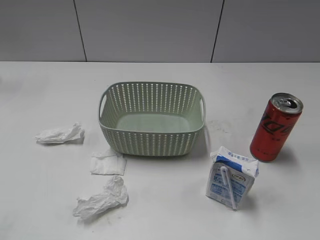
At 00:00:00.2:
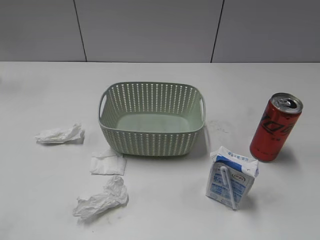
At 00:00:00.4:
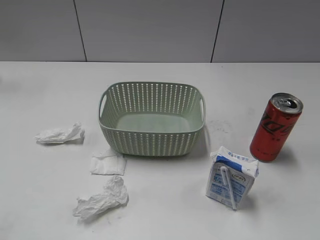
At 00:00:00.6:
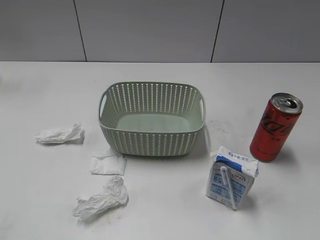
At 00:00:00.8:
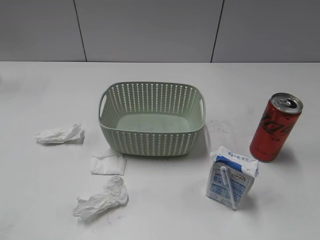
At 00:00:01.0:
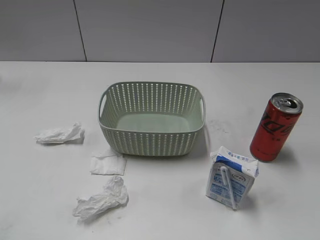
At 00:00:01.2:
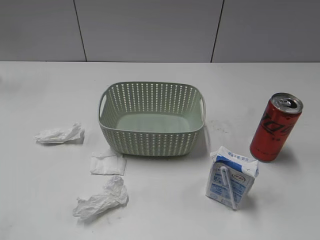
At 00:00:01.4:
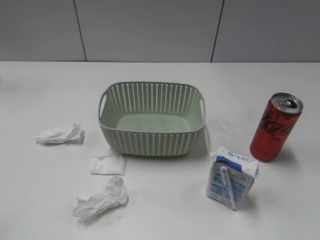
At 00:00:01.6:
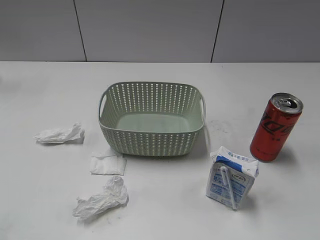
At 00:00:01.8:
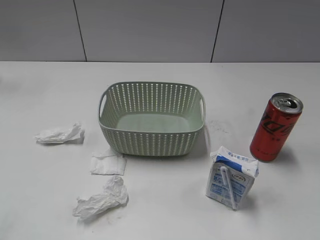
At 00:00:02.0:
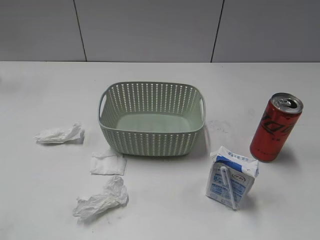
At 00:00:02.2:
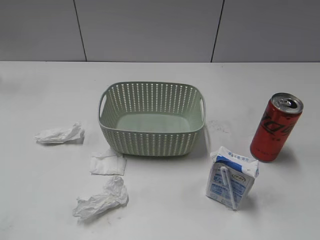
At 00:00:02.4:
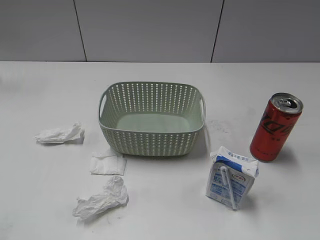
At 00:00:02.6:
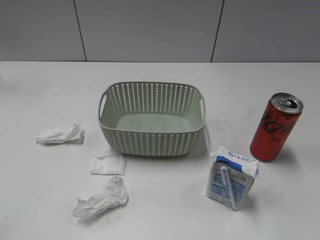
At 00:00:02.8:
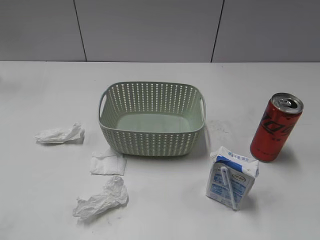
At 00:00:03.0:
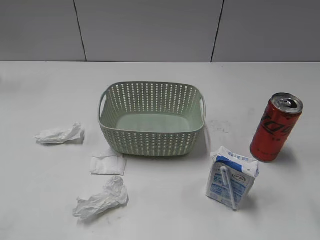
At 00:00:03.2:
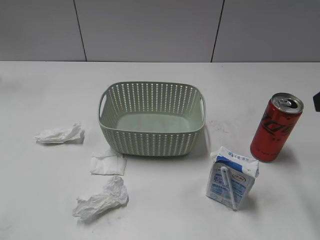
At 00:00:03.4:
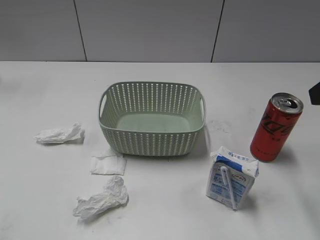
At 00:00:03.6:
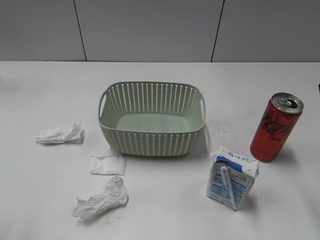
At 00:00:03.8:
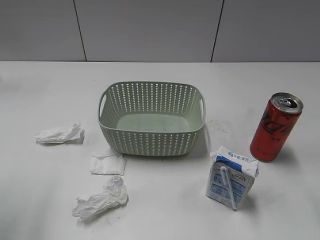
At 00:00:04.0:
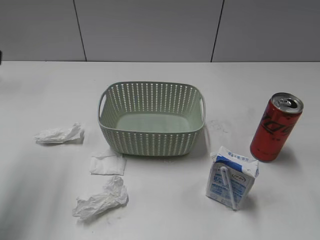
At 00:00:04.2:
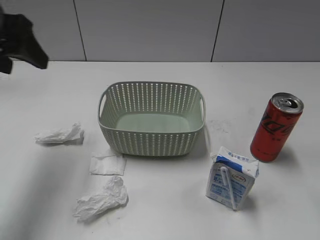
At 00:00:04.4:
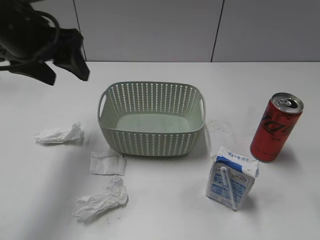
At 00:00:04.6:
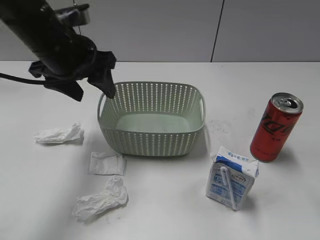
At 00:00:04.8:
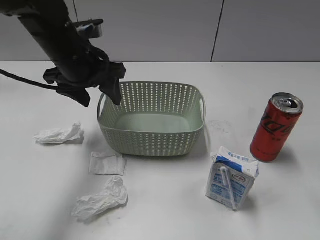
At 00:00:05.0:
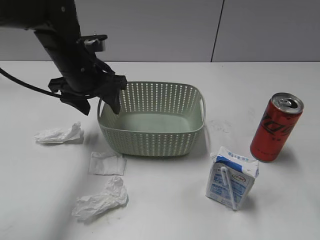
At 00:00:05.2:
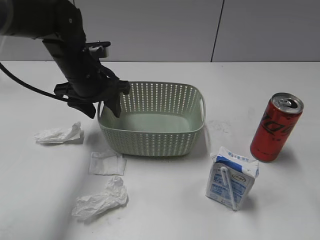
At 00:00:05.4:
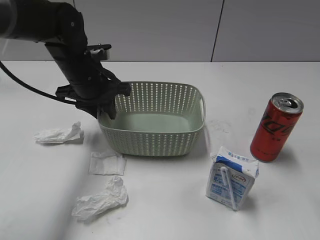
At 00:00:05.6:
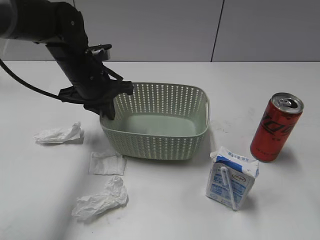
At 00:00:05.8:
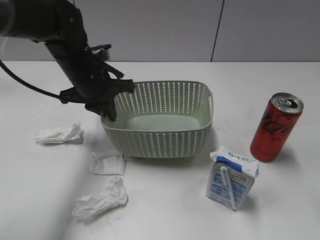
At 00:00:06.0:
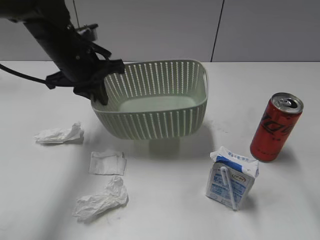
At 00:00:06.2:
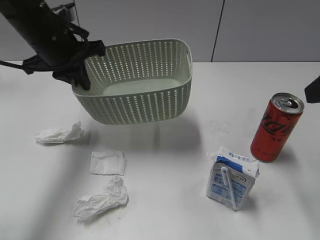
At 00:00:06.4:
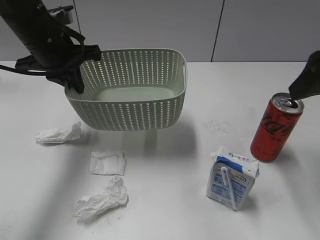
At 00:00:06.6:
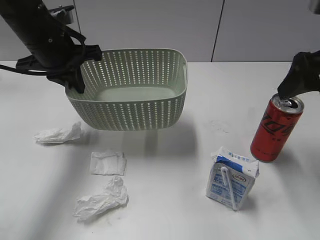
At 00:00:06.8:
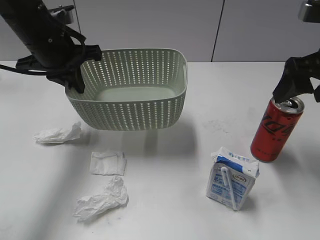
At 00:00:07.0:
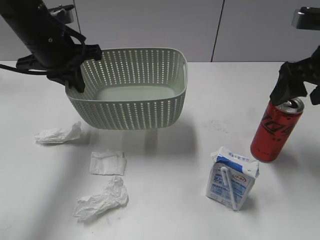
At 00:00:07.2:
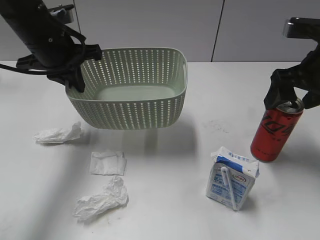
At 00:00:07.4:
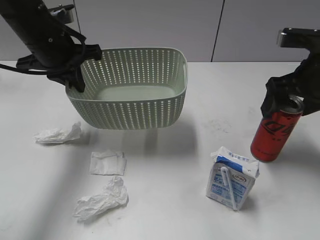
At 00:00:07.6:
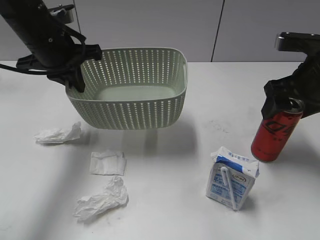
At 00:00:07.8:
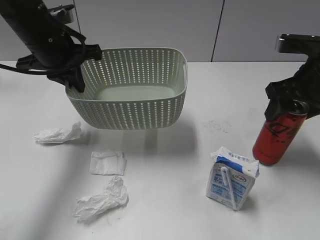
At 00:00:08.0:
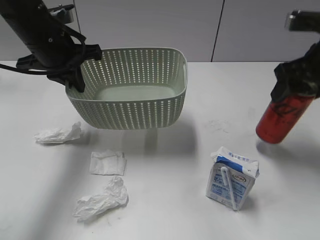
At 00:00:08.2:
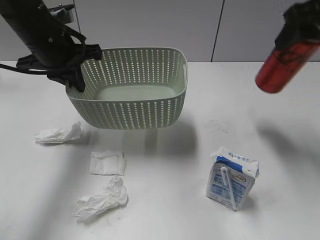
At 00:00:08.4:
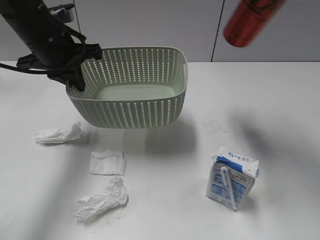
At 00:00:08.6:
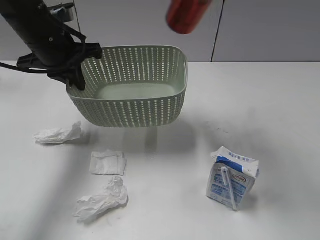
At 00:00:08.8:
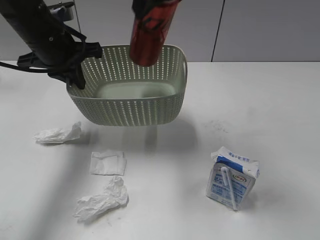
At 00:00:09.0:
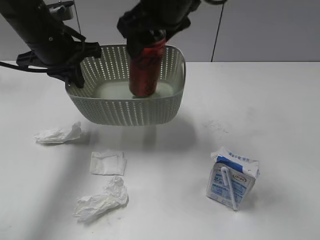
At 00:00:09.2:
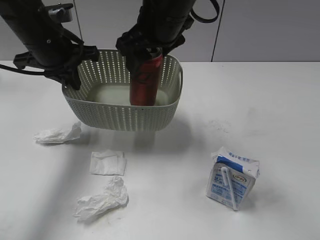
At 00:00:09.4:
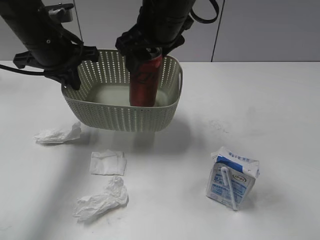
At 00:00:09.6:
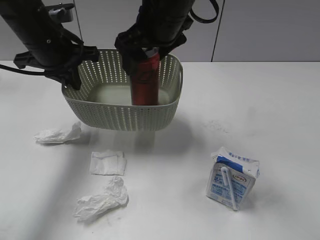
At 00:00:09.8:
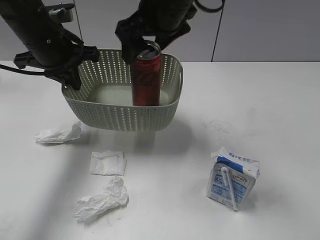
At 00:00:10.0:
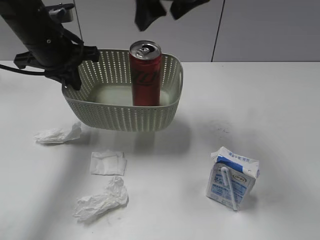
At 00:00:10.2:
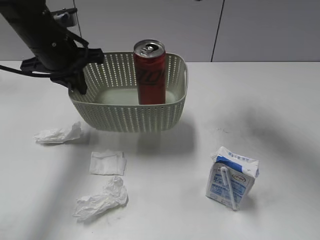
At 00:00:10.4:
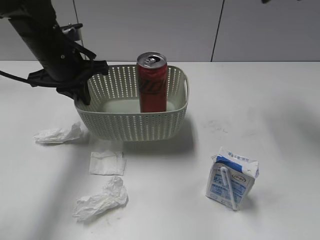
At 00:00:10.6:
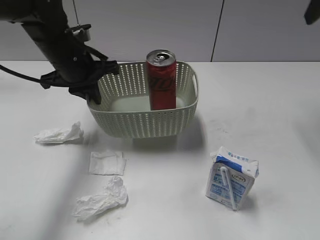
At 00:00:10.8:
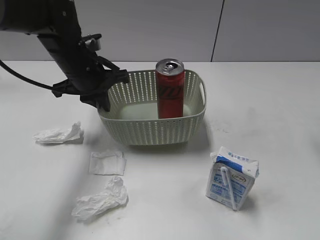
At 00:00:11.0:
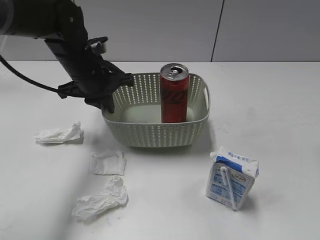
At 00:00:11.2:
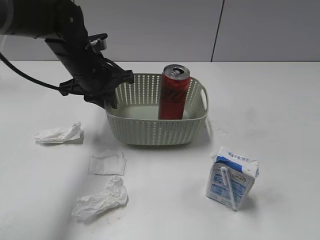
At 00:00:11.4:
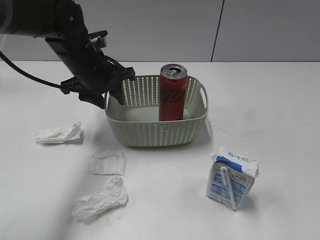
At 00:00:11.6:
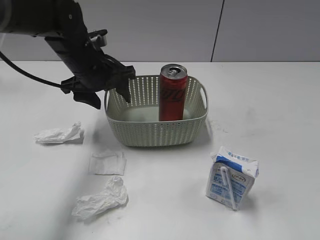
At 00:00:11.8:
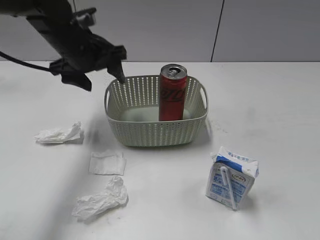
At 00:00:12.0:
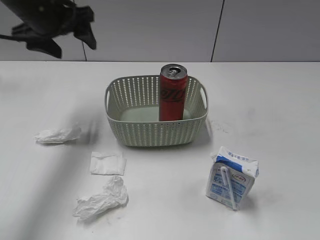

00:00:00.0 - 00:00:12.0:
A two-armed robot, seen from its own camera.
Step, 00:00:04.0 - 00:00:05.4: Grasp the basket with left gripper.
Step, 00:00:05.6 - 00:00:06.0: Lift the basket with left gripper.
Step, 00:00:06.2 - 00:00:07.6: Grasp the cola can with right gripper.
Step, 00:00:07.8 - 00:00:10.0: Place the cola can in the basket with right gripper.
Step, 00:00:10.2 - 00:00:11.6: Place the basket on the table with left gripper.
00:00:03.0 - 00:00:04.4: The left gripper travels forward and to the right by roughly 35 cm.
00:00:04.4 - 00:00:06.0: The left gripper goes some 10 cm downward and forward, and closes up.
00:00:06.0 - 00:00:07.6: The right gripper goes about 20 cm forward and downward, and opens, then closes once more.
00:00:07.6 - 00:00:09.0: The right gripper heads to the left, covering some 25 cm.
00:00:09.0 - 00:00:10.4: The right gripper goes about 20 cm to the right, and opens up.
00:00:10.4 - 00:00:12.0: The left gripper goes some 10 cm upward, and opens up; the right gripper shifts some 35 cm backward.

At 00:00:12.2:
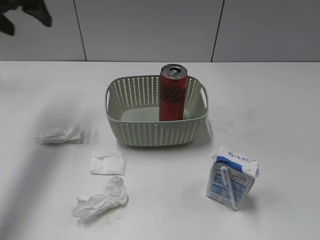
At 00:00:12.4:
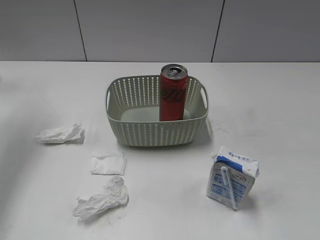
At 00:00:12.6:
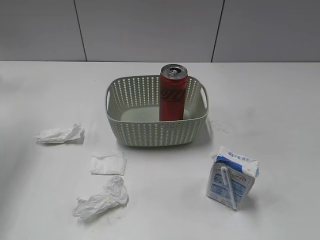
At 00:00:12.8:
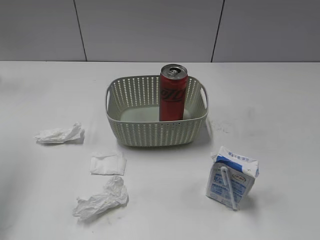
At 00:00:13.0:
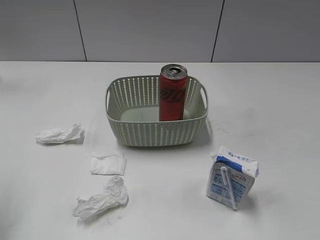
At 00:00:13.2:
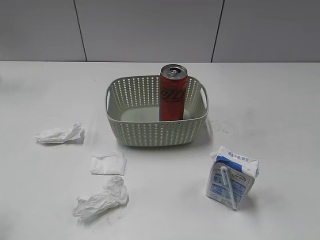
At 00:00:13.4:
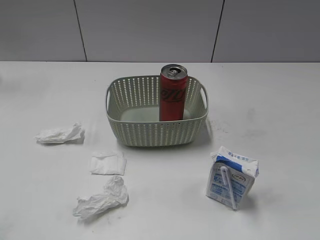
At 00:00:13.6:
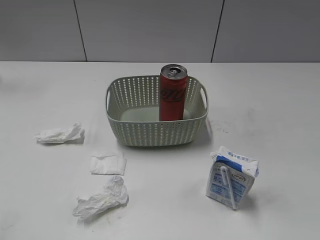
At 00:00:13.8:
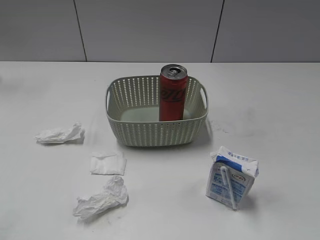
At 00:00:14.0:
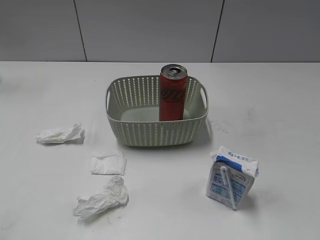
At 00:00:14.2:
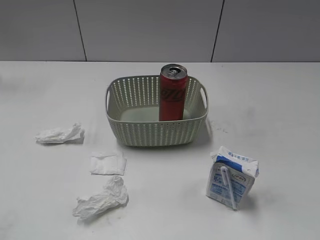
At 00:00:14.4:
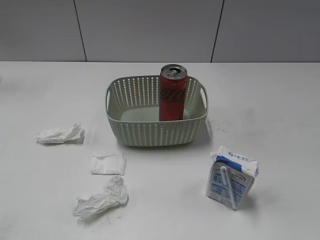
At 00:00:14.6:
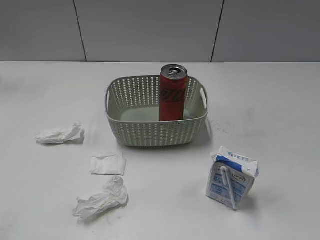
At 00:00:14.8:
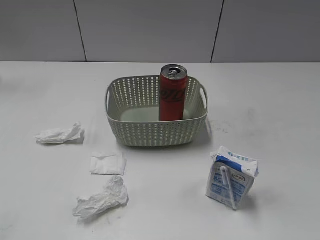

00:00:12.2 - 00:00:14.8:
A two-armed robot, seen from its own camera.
00:00:12.2 - 00:00:13.4: The left gripper travels backward by roughly 30 cm.
